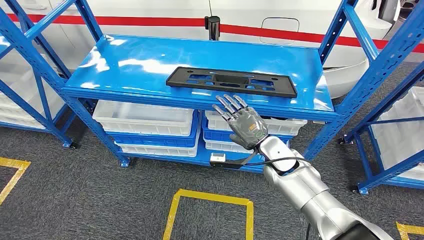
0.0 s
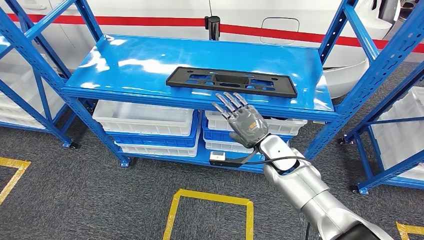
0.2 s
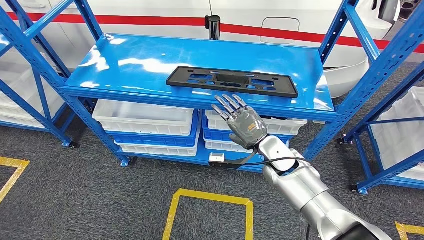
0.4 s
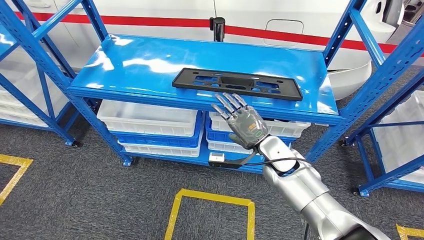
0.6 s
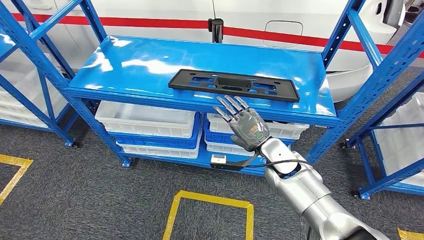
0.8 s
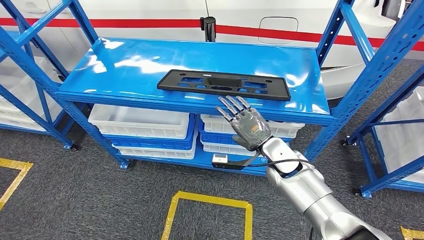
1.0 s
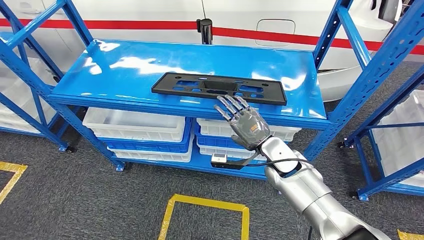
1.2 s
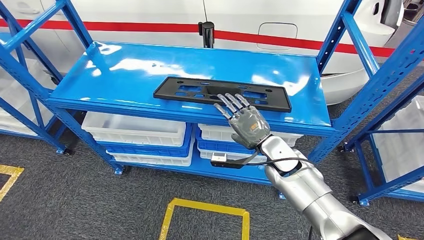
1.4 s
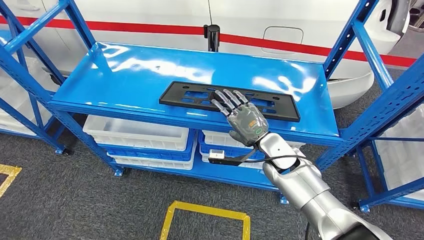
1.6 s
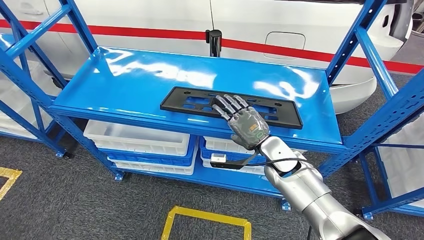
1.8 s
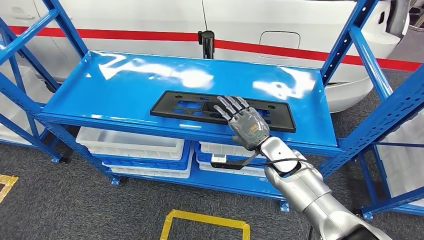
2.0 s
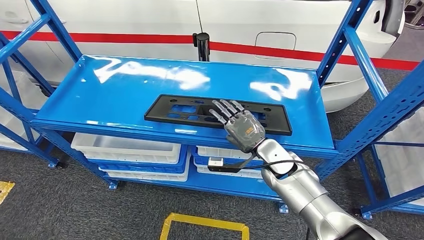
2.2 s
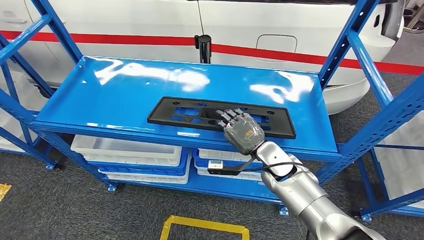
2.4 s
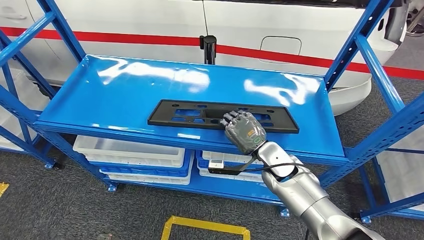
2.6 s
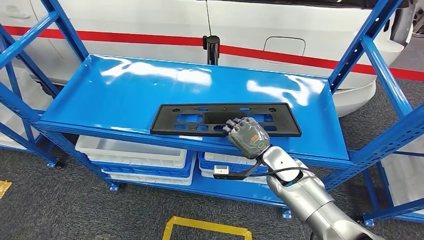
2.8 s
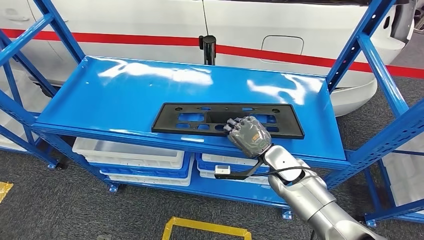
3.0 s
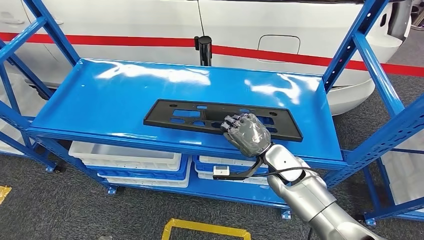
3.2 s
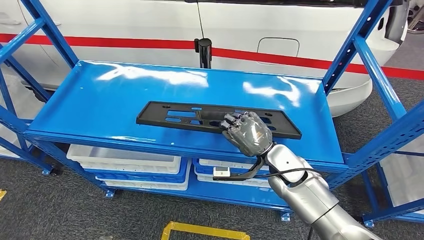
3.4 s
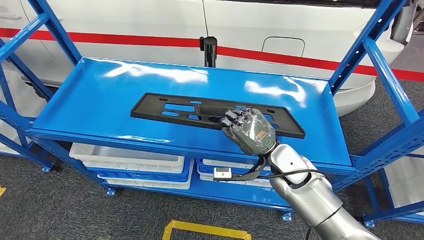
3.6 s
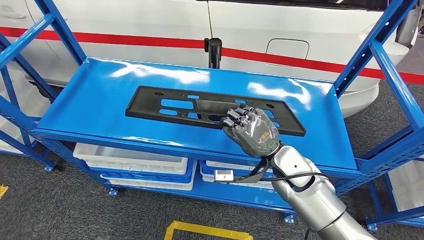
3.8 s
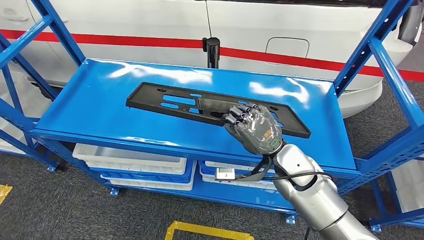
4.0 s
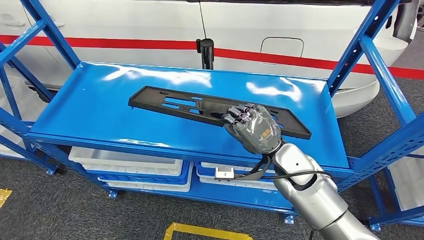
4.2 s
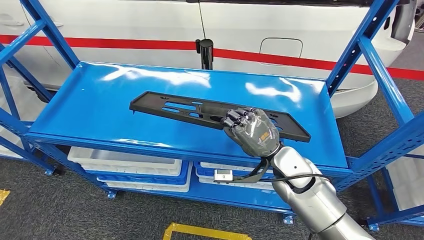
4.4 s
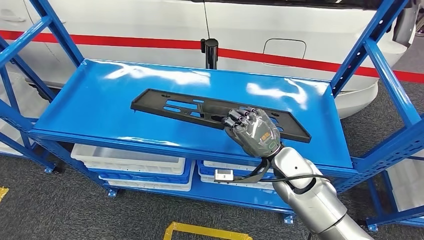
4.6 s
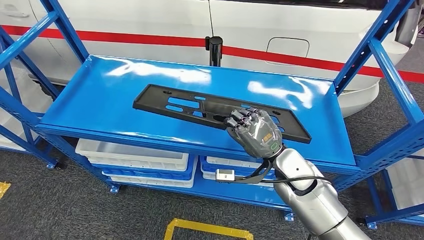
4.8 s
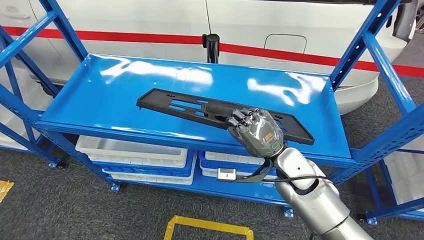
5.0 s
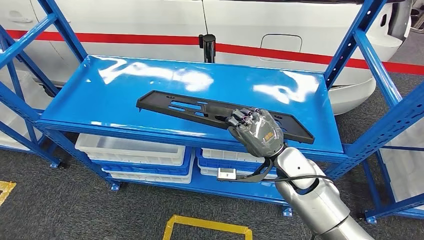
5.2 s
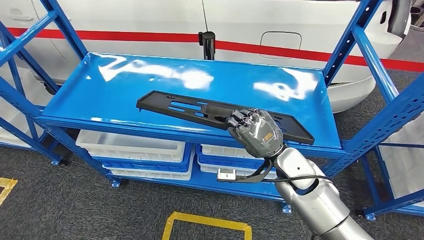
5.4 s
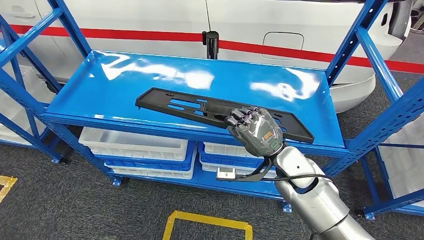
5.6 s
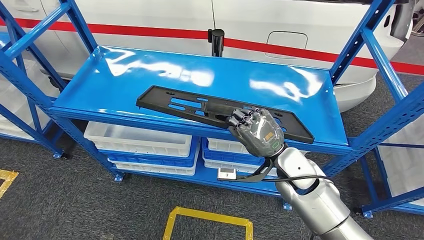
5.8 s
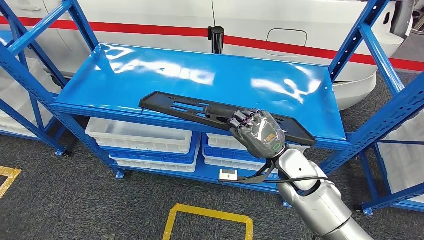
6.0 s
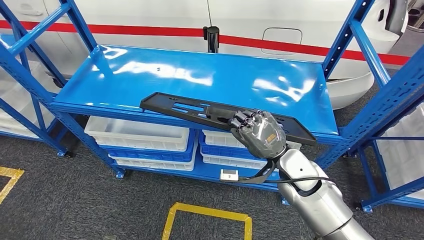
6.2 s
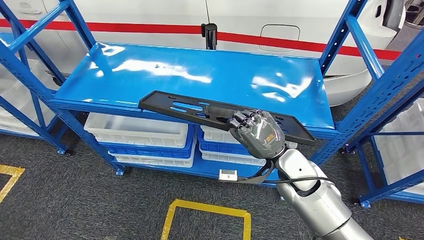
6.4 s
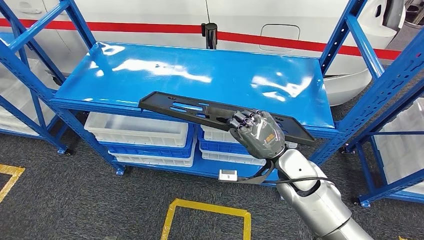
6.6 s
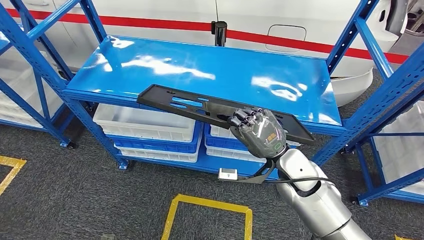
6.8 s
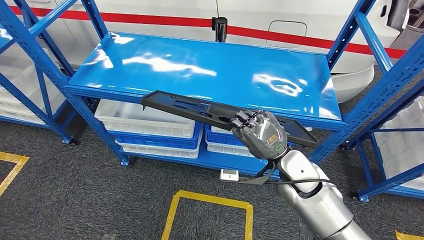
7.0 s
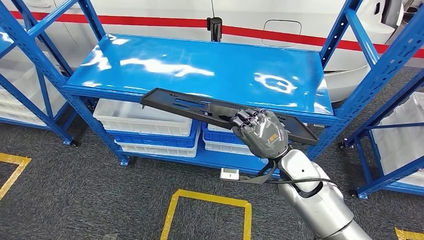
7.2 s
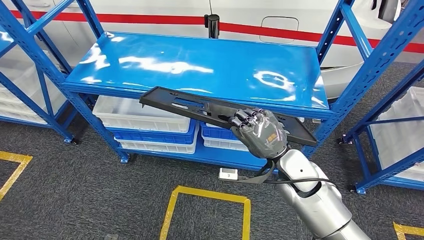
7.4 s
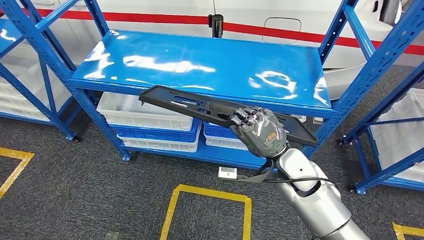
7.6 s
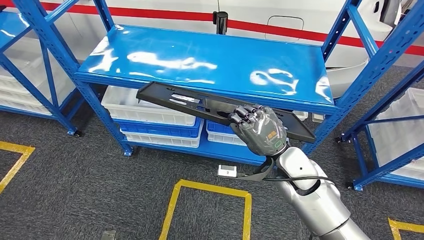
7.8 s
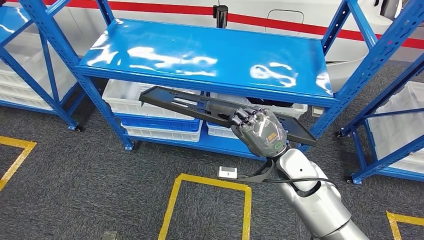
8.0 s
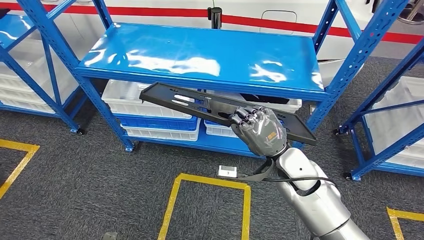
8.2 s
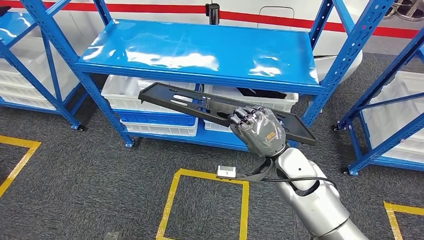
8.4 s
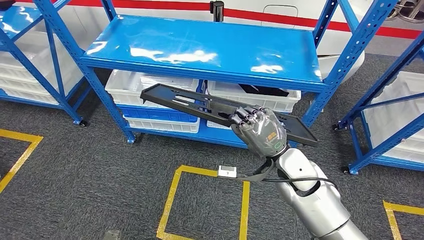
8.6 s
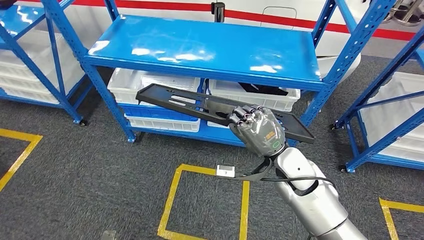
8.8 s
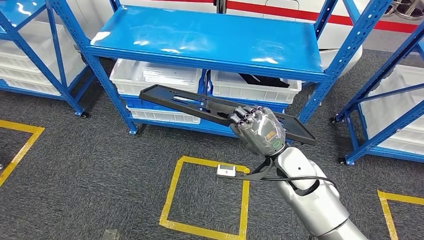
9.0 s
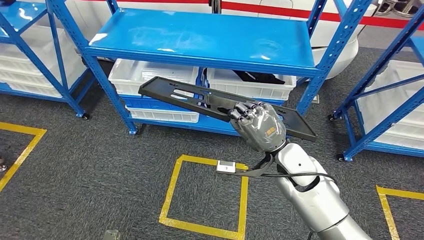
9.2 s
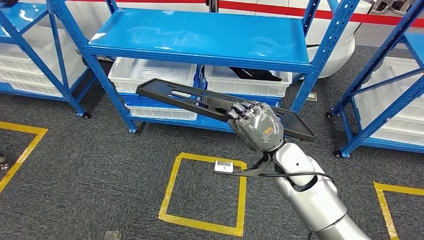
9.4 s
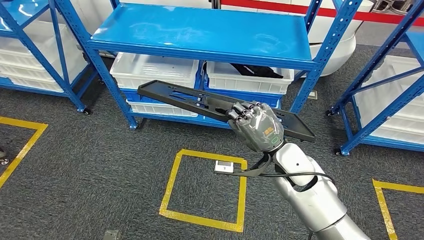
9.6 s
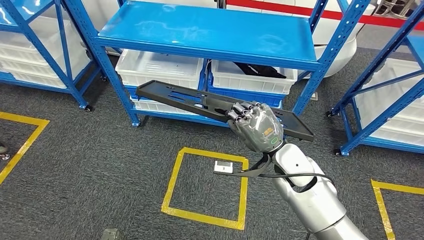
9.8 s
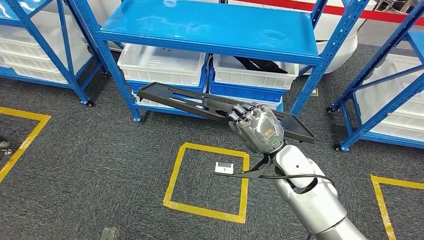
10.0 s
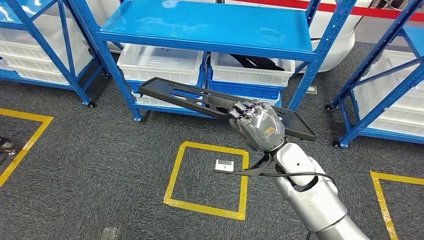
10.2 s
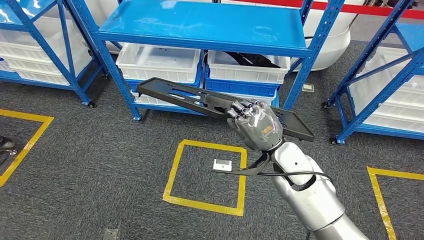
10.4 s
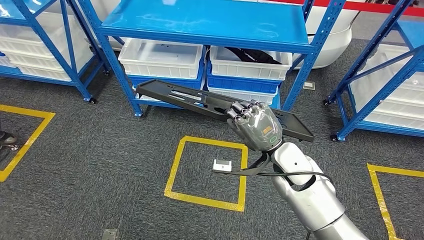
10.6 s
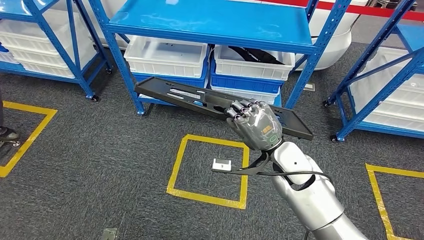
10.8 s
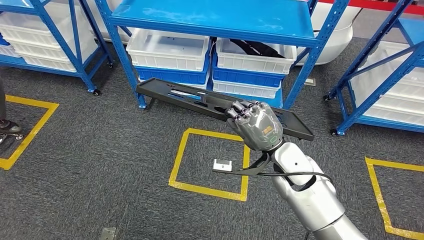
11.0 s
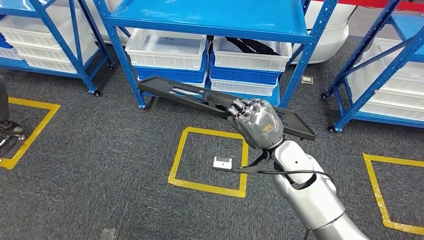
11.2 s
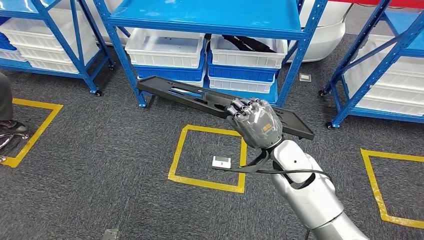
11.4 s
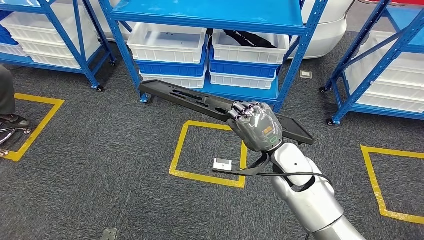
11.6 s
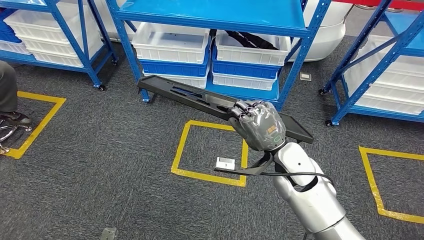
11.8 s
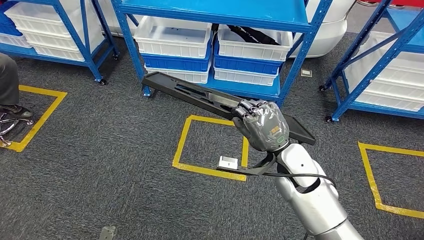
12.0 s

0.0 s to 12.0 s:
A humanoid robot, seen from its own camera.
Step, 0.0 to 8.4 s: Pick up the large material from the shelf.

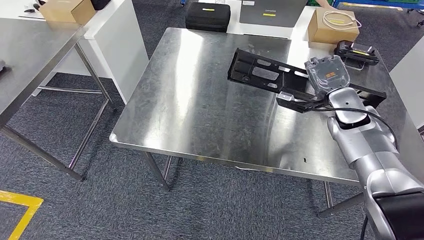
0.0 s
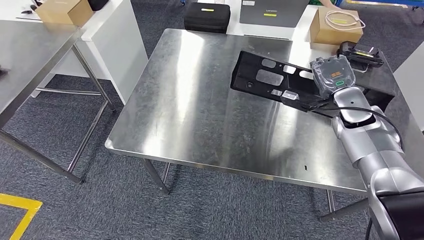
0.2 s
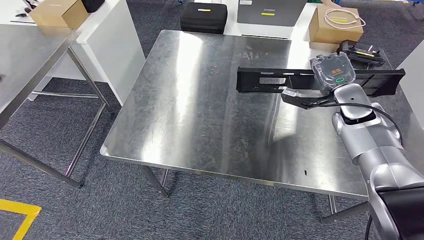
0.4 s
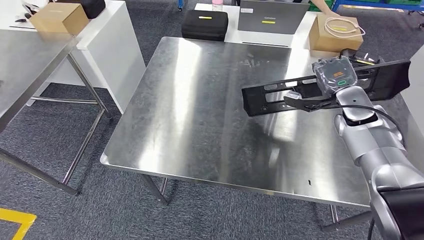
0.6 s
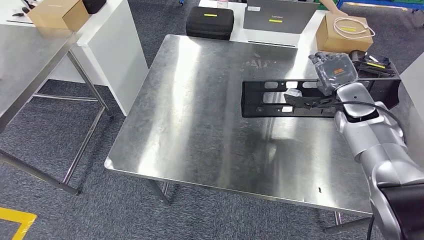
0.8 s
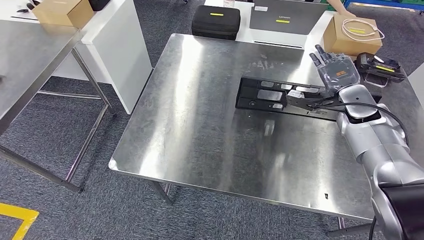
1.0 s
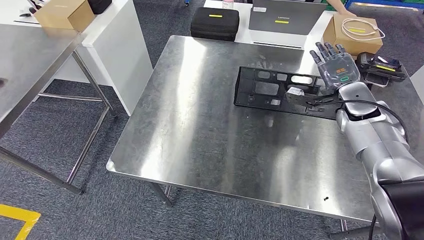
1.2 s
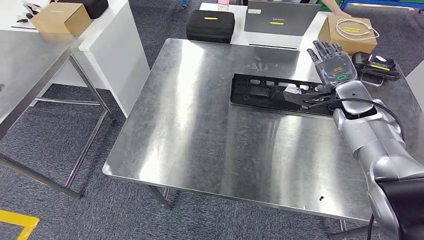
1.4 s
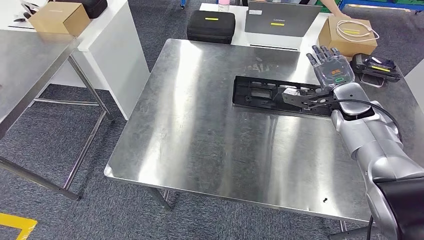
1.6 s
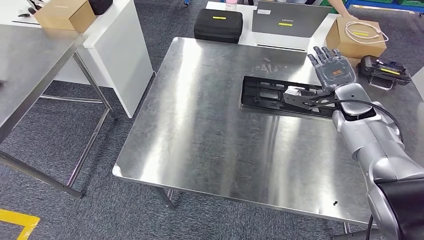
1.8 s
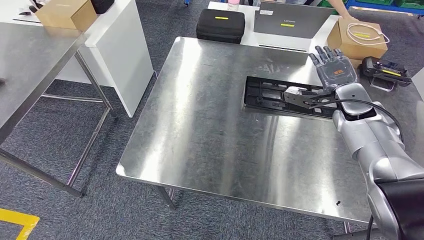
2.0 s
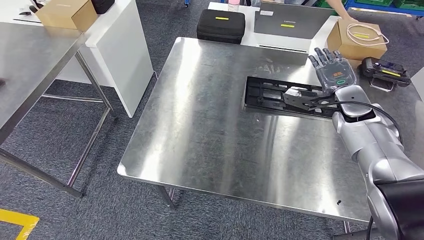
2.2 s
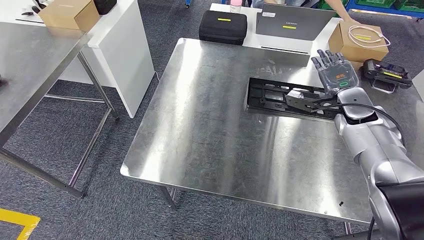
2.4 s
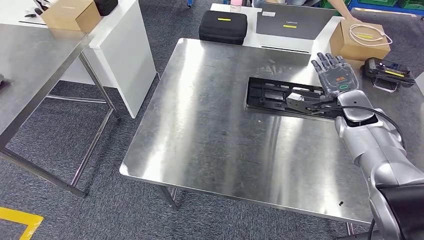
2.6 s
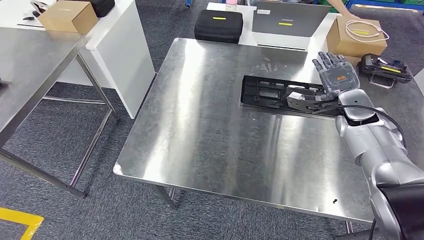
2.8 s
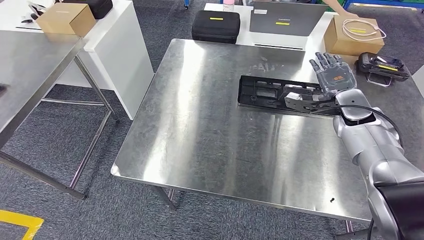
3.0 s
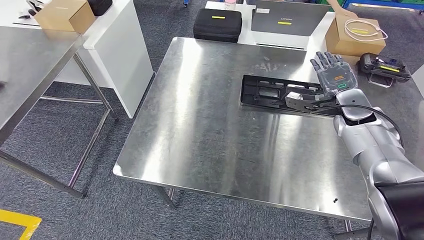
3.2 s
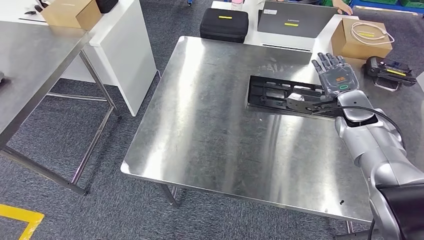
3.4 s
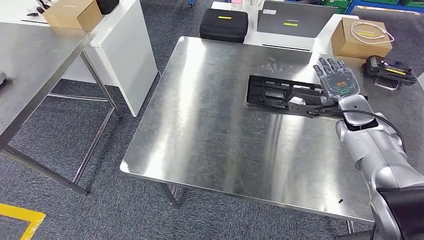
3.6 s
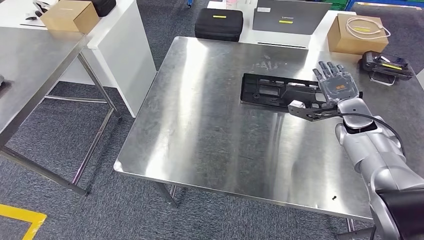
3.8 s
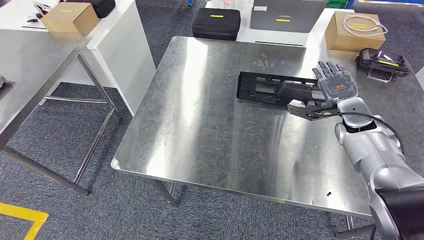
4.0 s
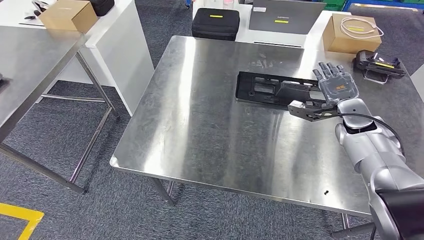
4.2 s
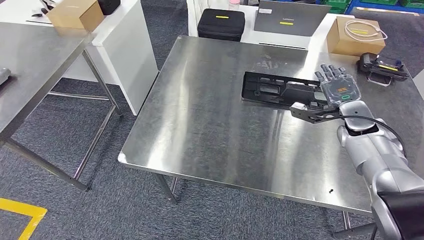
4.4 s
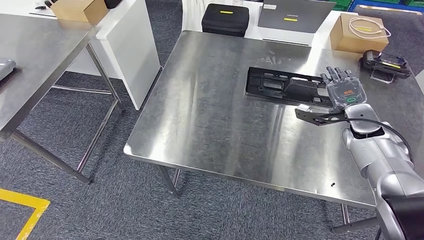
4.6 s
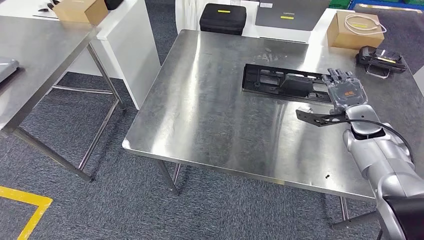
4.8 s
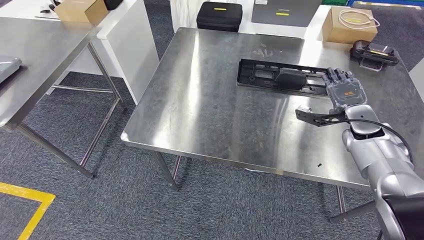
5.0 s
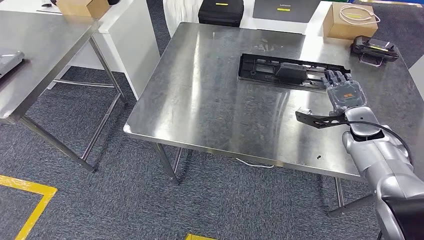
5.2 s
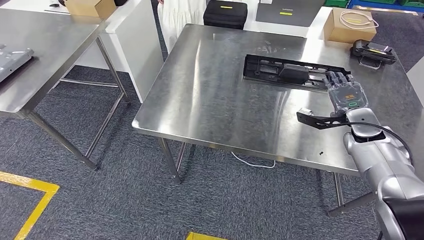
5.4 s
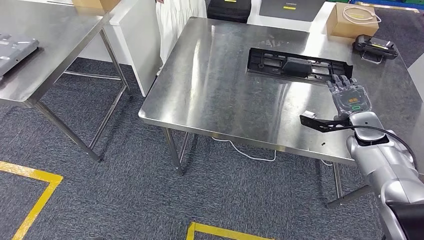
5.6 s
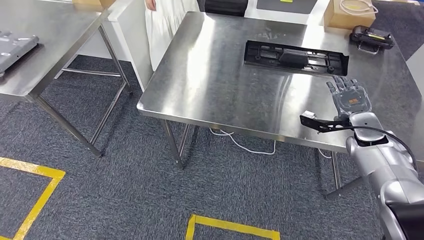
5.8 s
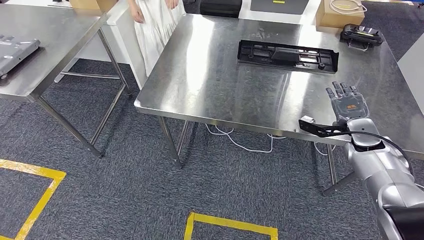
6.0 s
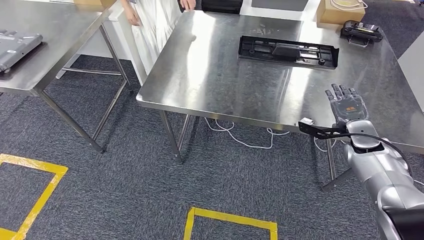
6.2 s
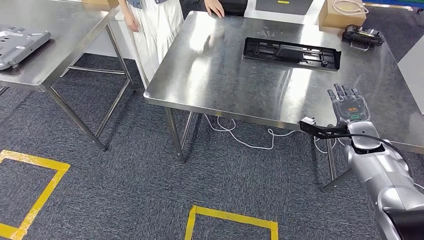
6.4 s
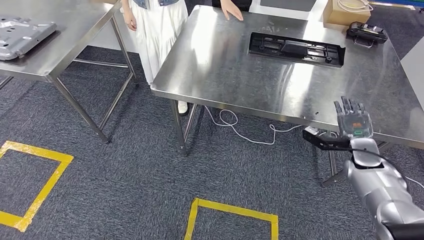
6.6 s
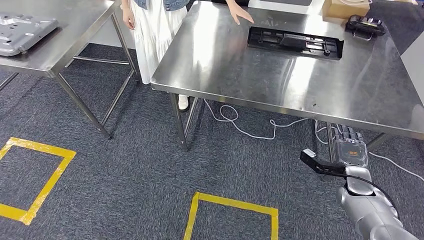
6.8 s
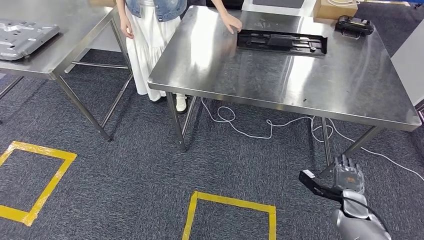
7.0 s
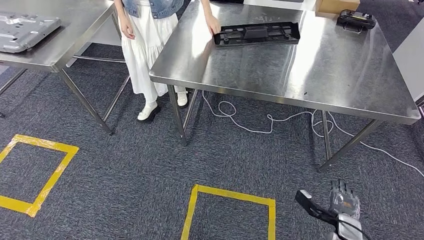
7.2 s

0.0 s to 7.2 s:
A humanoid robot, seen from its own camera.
Step, 0.0 to 2.2 s: Insert the large material into the corresponding slot on the workbench.
